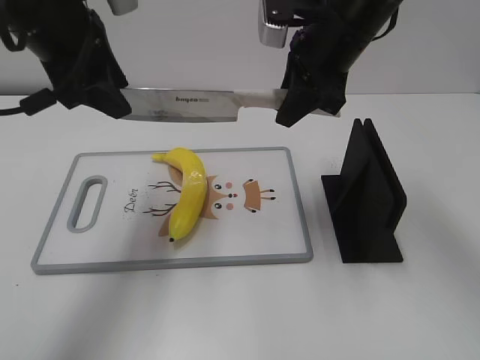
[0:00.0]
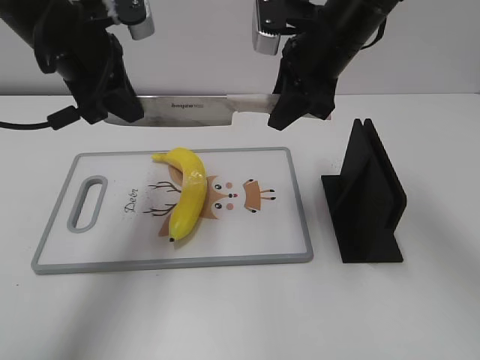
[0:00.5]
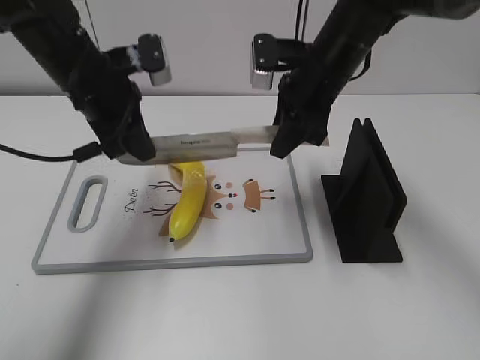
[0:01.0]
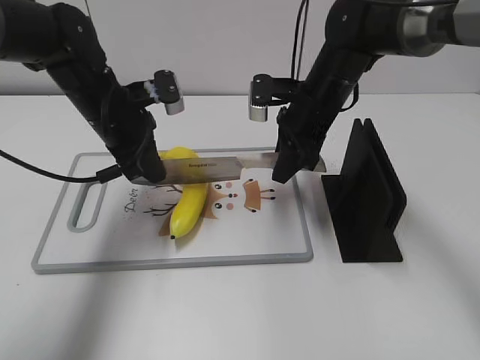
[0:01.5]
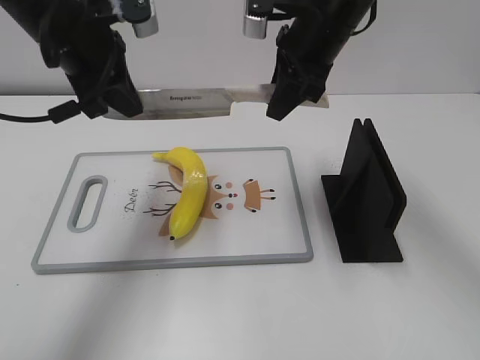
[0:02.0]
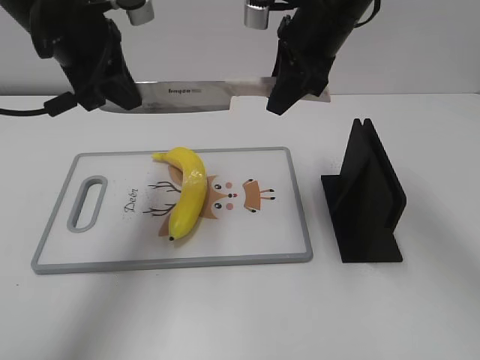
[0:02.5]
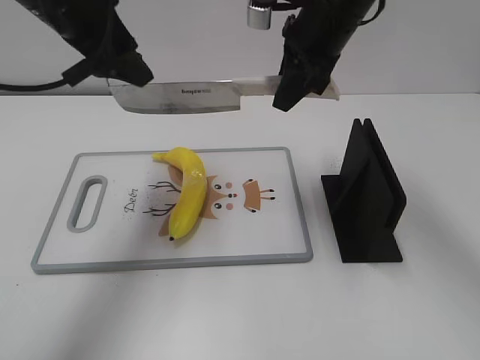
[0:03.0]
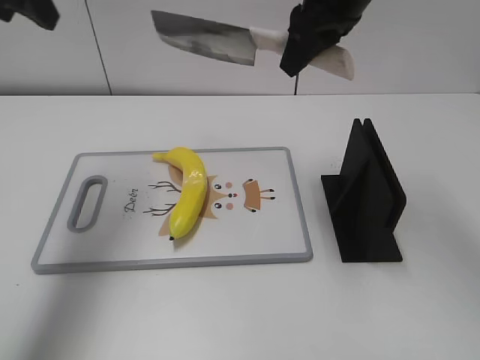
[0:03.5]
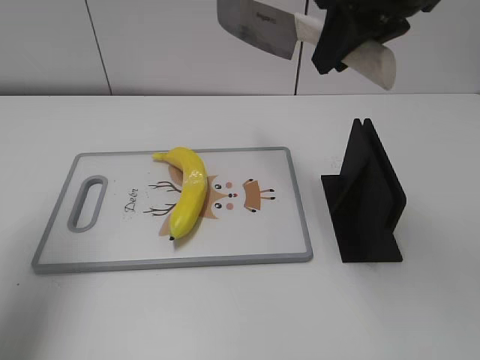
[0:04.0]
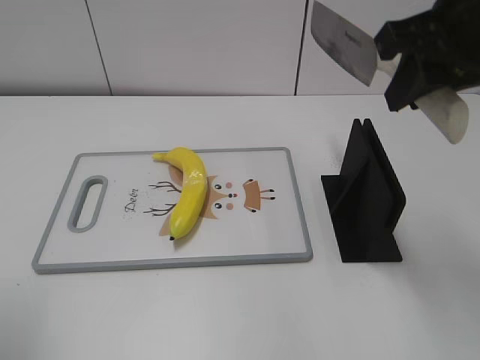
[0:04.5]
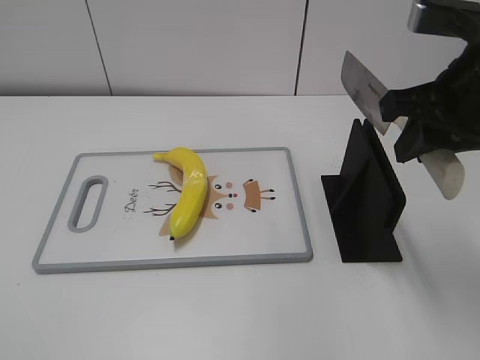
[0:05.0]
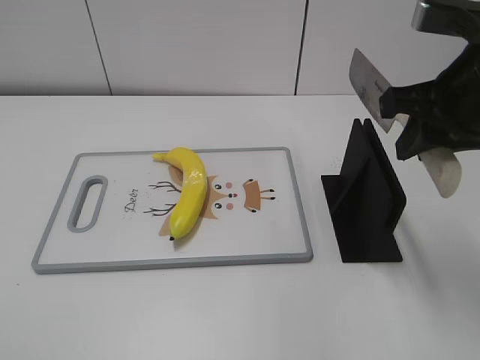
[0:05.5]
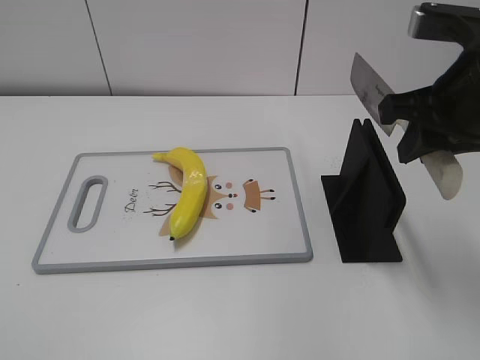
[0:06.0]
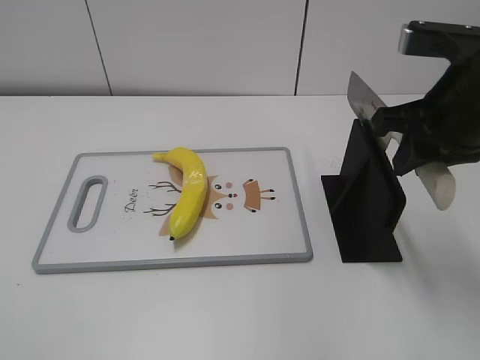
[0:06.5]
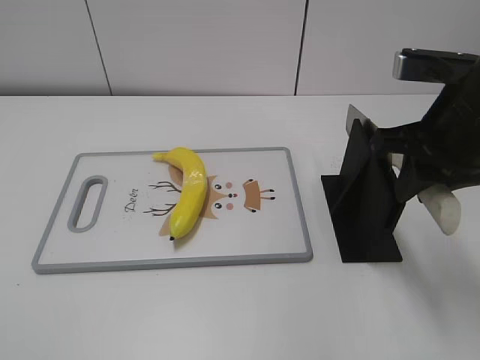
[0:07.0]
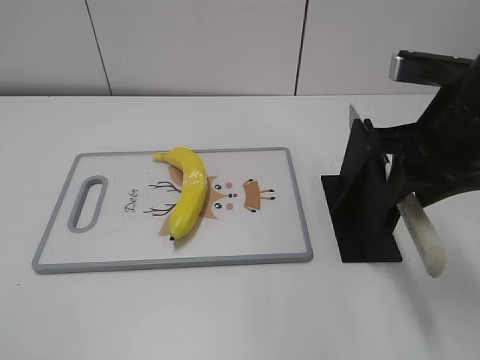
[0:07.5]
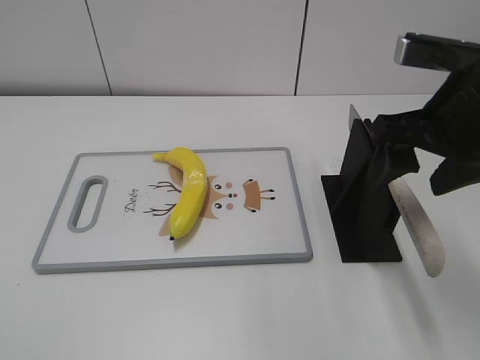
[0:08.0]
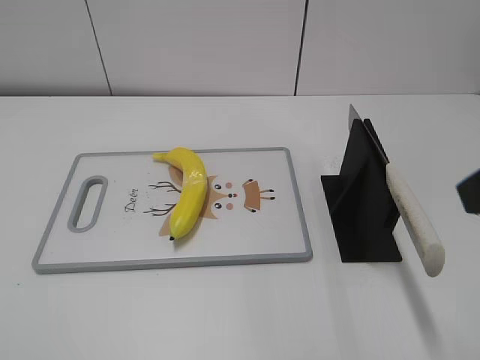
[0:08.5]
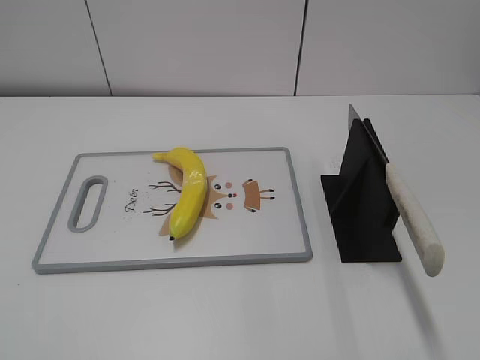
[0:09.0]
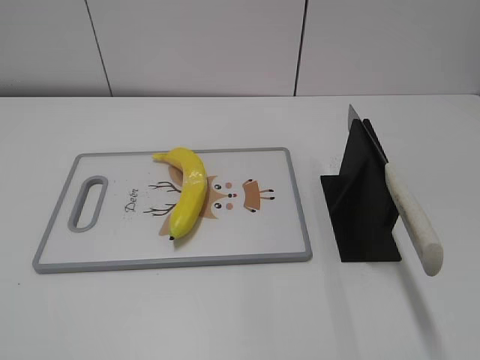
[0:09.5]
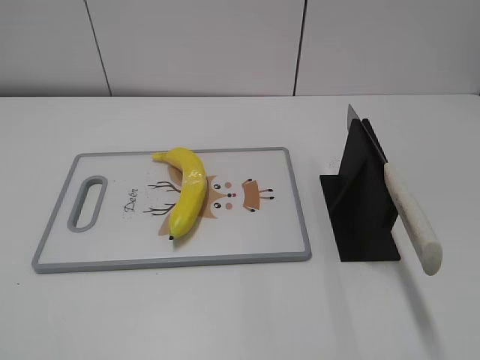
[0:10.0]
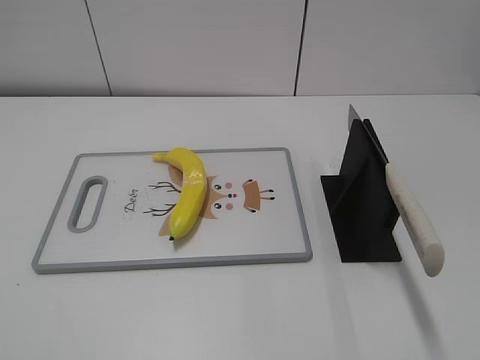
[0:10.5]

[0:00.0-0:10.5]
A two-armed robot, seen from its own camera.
Task of the whole recording: cut plastic banana.
Step, 0:00.0 to 0:02.0: Lift the knife with your right hand.
Step, 0:04.0 to 0:04.5: Secure the blade with your left hand.
Step, 0:05.0 to 0:10.5: Place the knife on the storage rack with your right hand.
0:00.0 to 0:02.0: The left gripper travels downward and back again, about 15 cm each way, and closes its fingers. The right gripper goes downward and returns, about 10 cm each way.
0:02.0 to 0:04.0: The right gripper moves upward and backward, about 15 cm. The left gripper shifts some 15 cm to the left, upward and backward, and opens.
0:04.0 to 0:06.5: The left gripper moves backward, some 30 cm. The right gripper goes approximately 15 cm downward, to the right and backward.
0:06.5 to 0:08.5: The right gripper heads backward and upward, covering approximately 15 cm, and opens up.

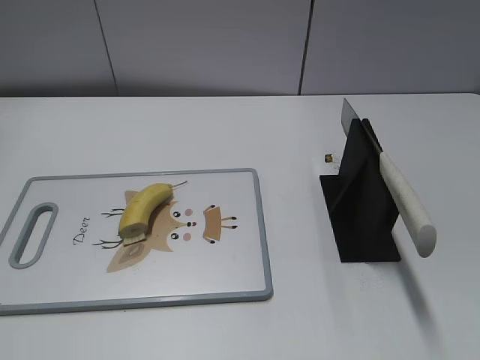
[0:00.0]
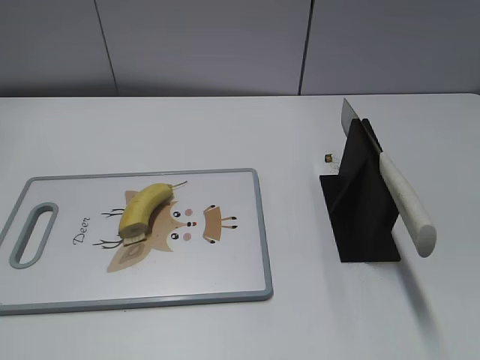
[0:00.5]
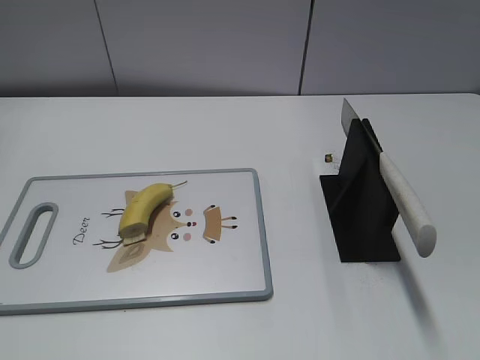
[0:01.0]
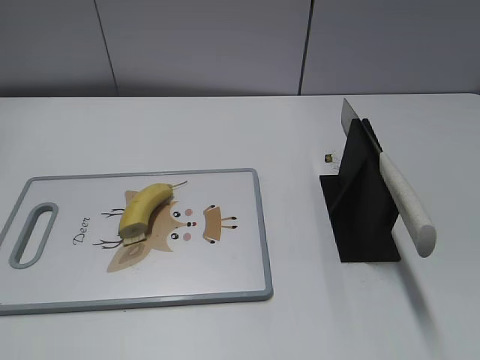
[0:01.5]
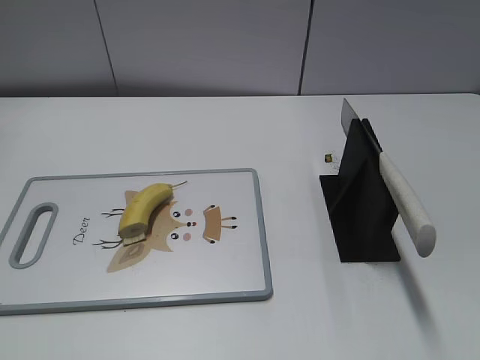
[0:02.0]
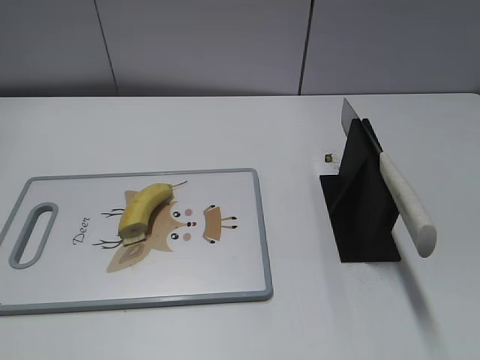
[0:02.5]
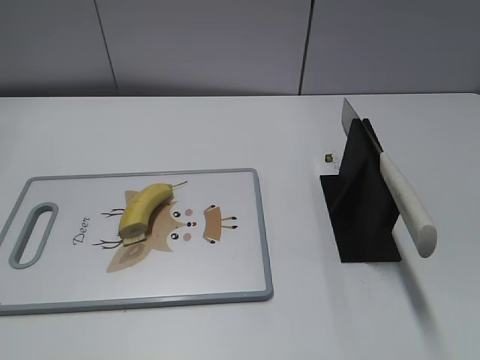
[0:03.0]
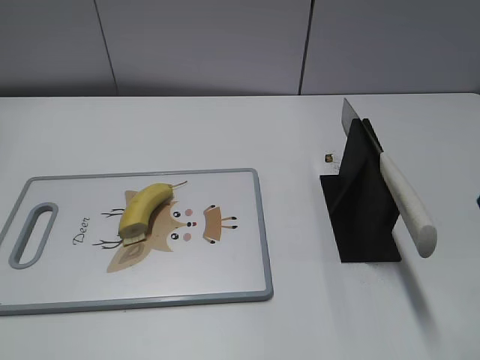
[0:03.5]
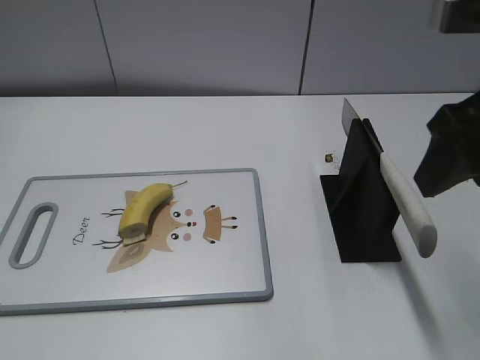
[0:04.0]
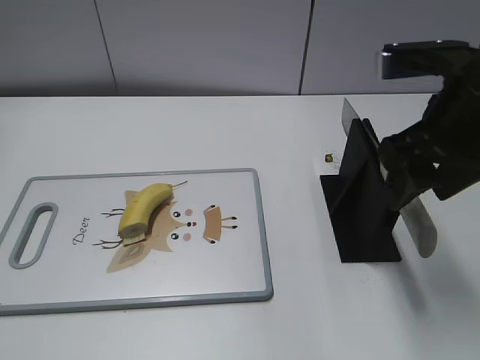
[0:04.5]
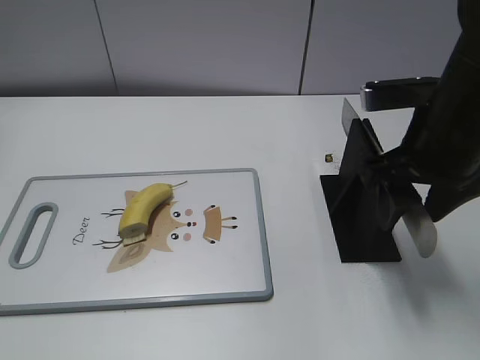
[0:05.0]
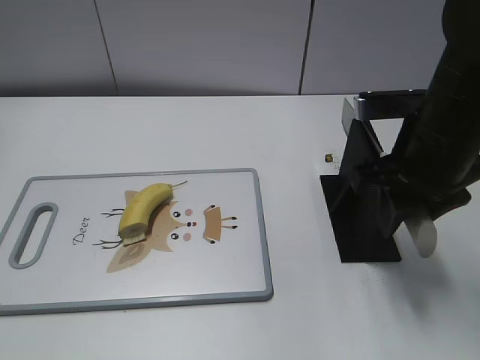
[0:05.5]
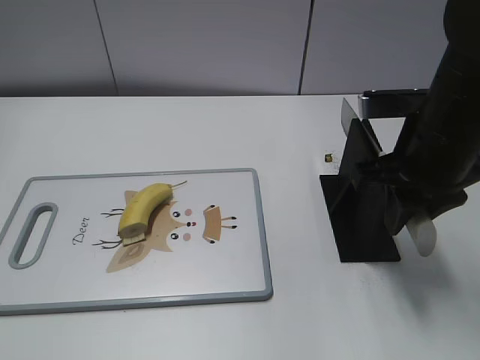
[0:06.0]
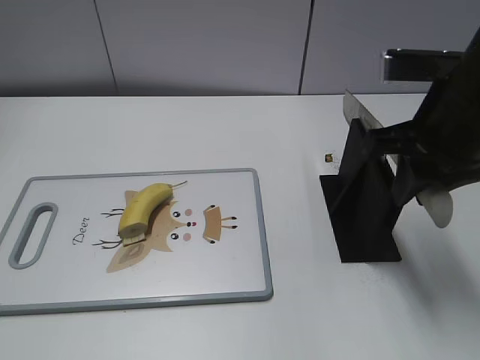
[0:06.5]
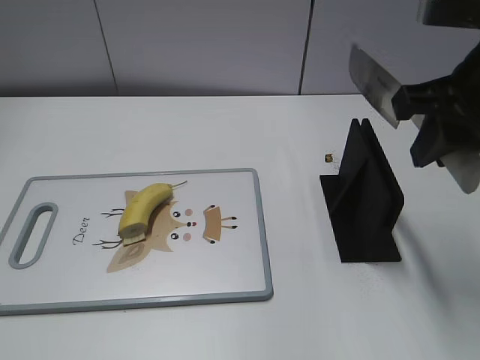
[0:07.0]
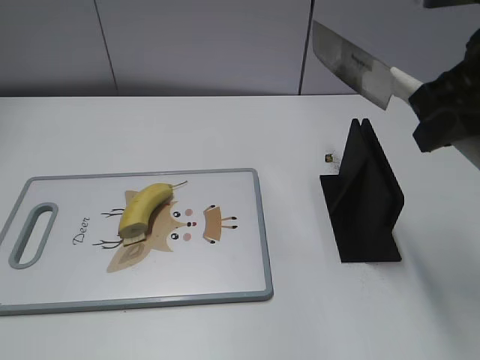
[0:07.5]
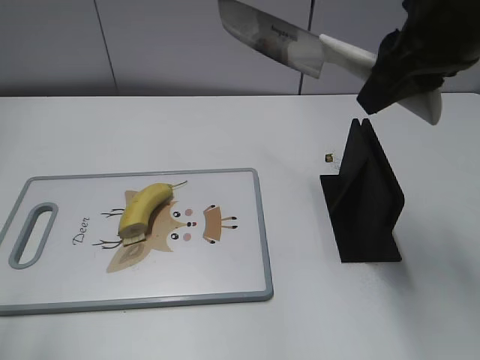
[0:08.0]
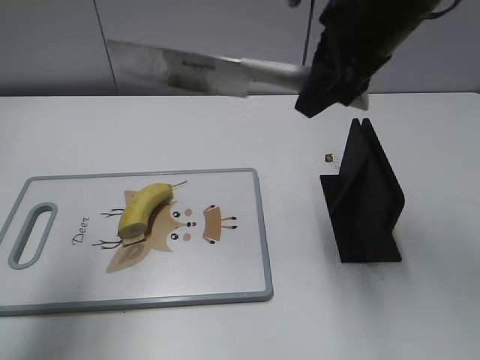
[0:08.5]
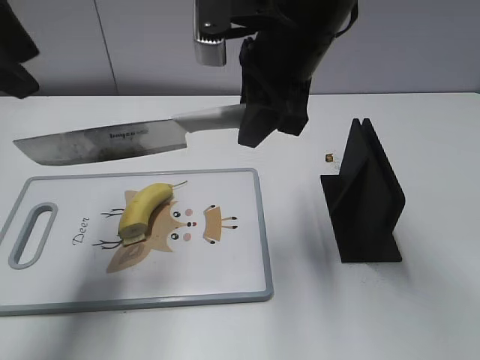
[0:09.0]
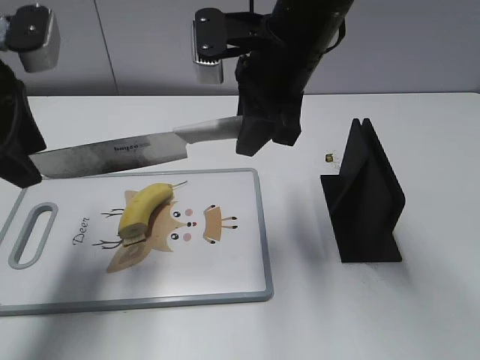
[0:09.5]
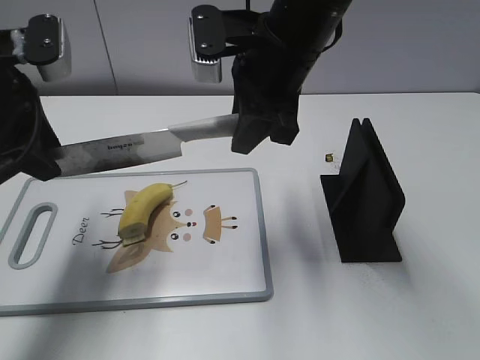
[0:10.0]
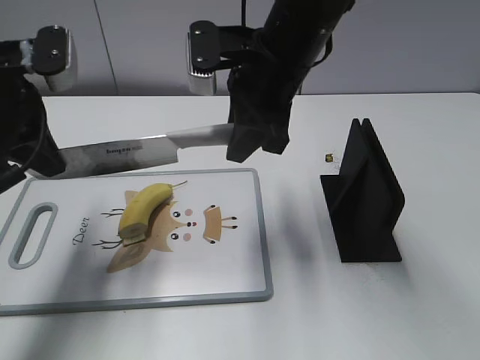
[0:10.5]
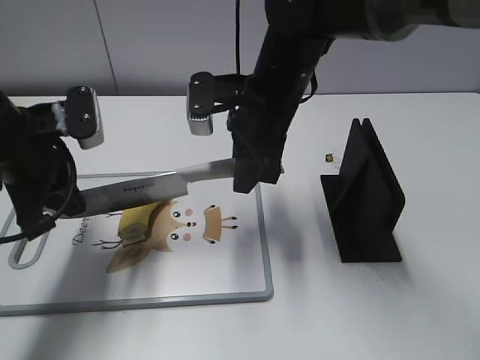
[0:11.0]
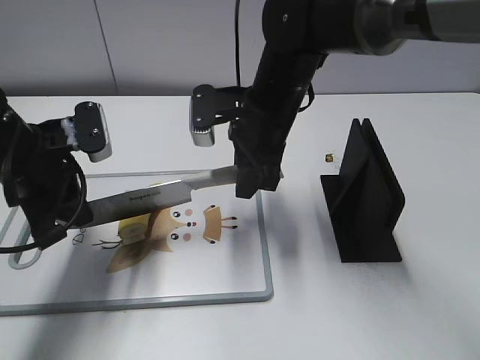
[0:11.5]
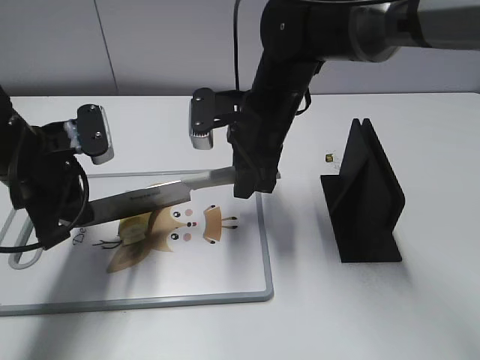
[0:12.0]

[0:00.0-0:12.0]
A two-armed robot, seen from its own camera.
Task of the whole recording: cut banana.
Step, 0:00.0 to 0:07.0: Grab the knife handle with your right hand.
0:02.0 to 0:04.0: The right gripper heads forward and to the left, covering roughly 25 cm.
0:04.0 to 0:06.0: The right gripper moves downward and forward, roughly 10 cm, and closes up.
0:06.0 to 0:08.0: The left gripper shifts about 15 cm forward and upward. Meanwhile the right gripper is displaced upward by approximately 10 cm.
0:08.0 to 0:10.0: The right gripper heads to the left, downward and forward, covering about 15 cm; the left gripper is displaced forward and downward by some 20 cm.
0:10.0 to 0:12.0: Both grippers travel together downward, some 10 cm. The left gripper closes.

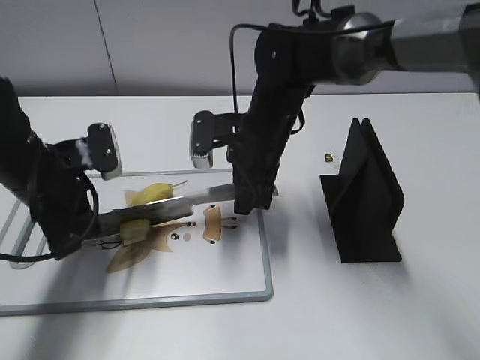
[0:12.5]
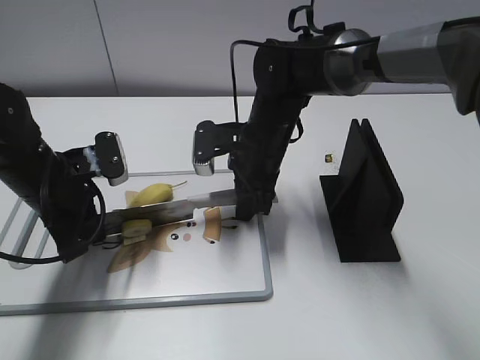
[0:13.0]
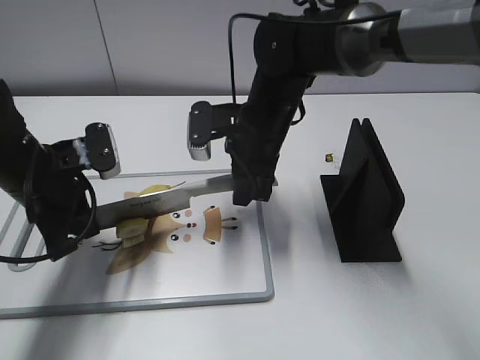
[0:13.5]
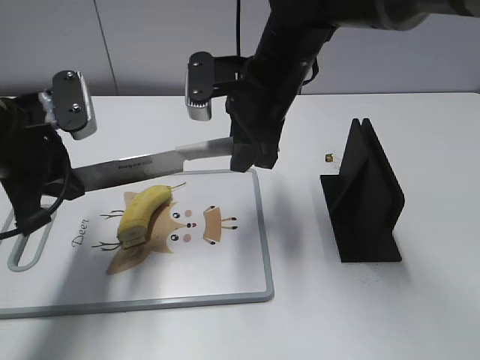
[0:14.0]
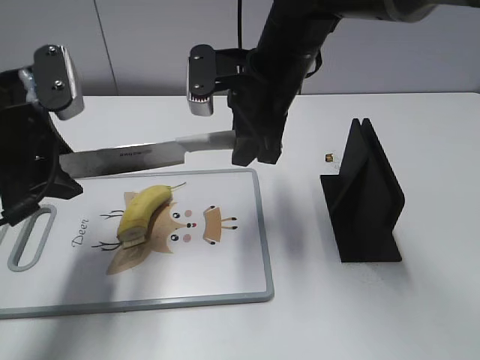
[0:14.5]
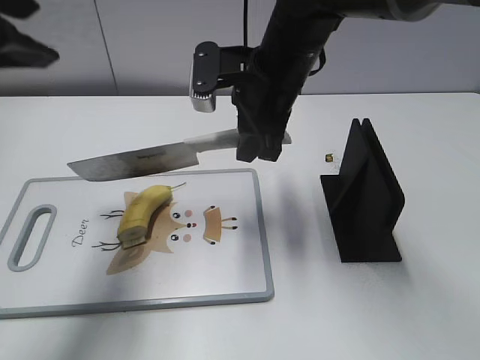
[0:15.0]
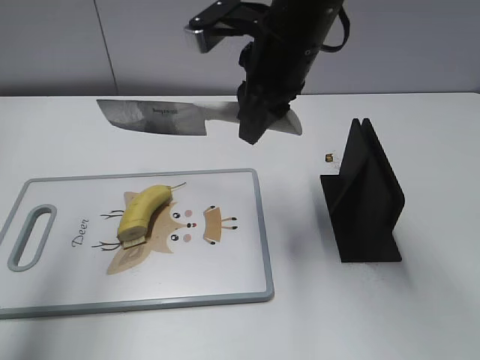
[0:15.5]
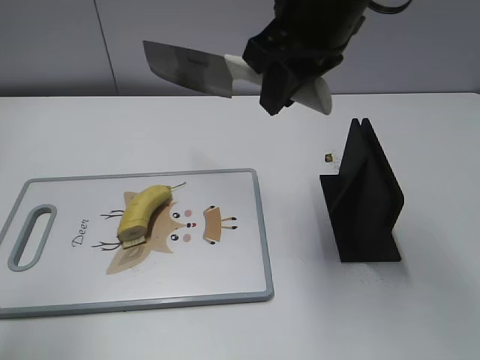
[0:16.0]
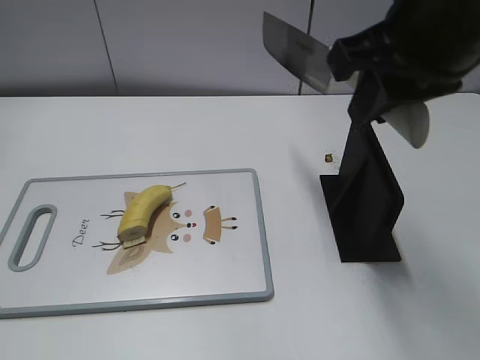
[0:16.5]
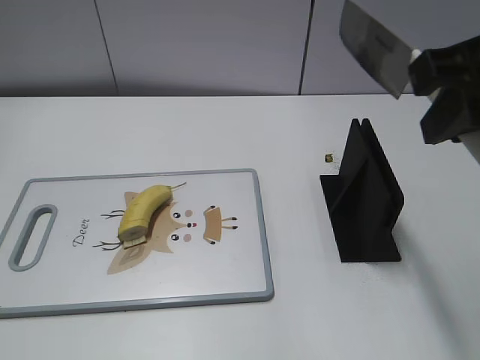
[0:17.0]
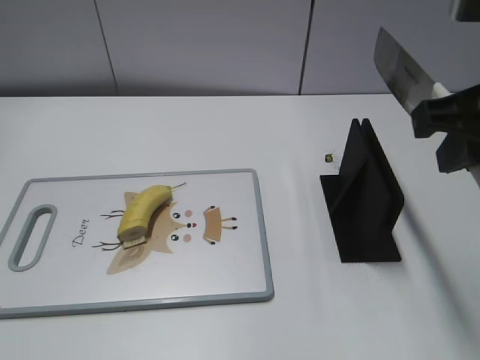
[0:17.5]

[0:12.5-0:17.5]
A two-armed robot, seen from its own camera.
Task of the whole recording: cut banana.
Step, 0:13.0 to 0:16.0: Cut the banana with your right hand.
0:12.5 to 0:15.0: The right gripper heads upward, covering roughly 10 cm; the left gripper shifts approximately 25 cm upward, and opens its fingers.
0:15.0 to 0:17.5: The left gripper is displaced backward by about 25 cm. The right gripper moves backward, to the right and upward, approximately 25 cm.
